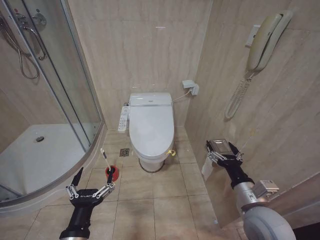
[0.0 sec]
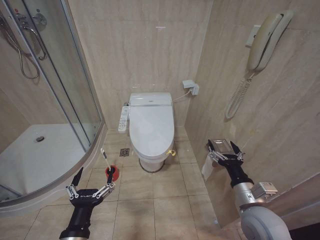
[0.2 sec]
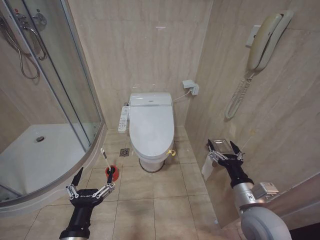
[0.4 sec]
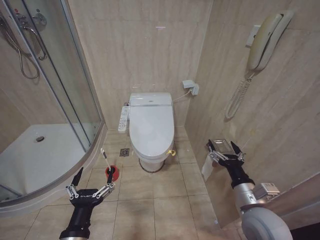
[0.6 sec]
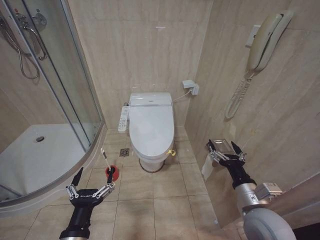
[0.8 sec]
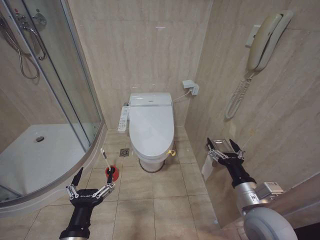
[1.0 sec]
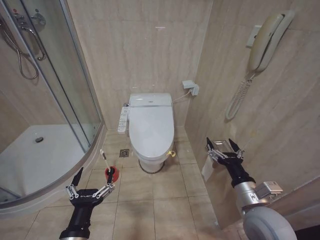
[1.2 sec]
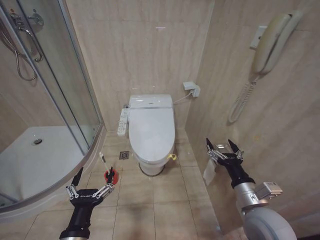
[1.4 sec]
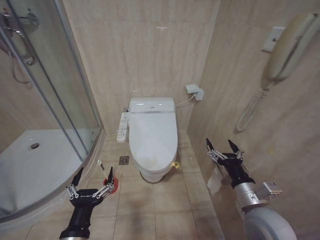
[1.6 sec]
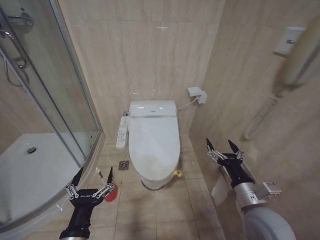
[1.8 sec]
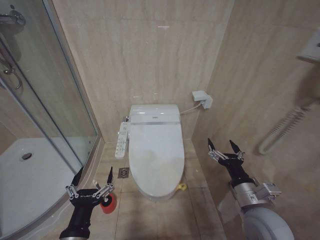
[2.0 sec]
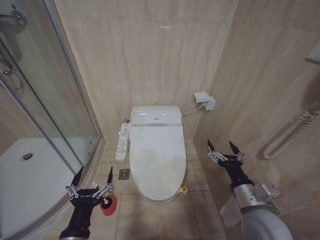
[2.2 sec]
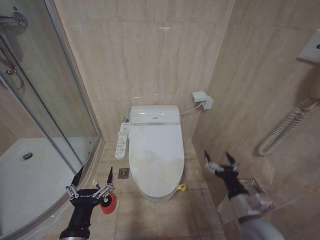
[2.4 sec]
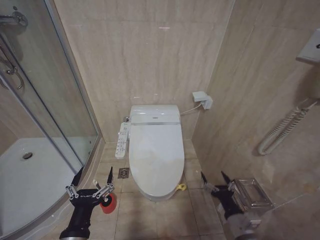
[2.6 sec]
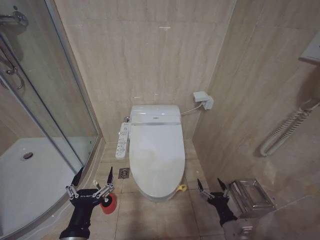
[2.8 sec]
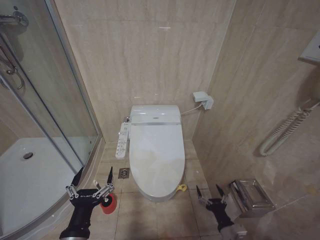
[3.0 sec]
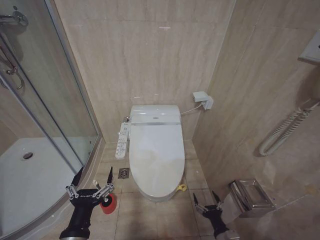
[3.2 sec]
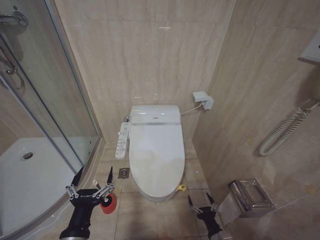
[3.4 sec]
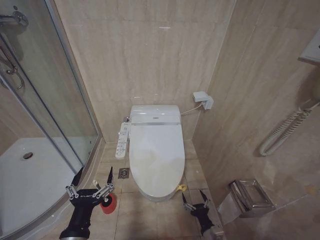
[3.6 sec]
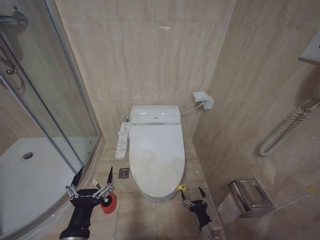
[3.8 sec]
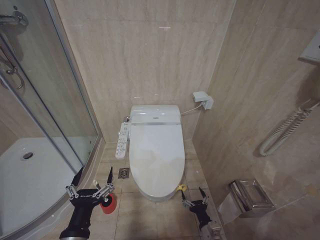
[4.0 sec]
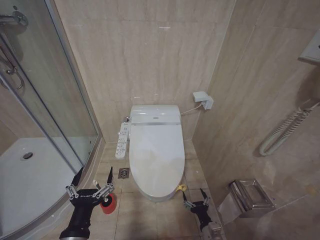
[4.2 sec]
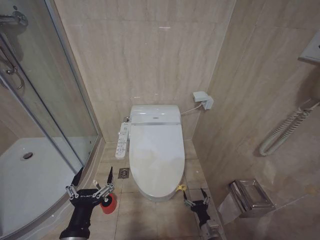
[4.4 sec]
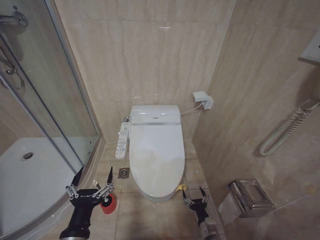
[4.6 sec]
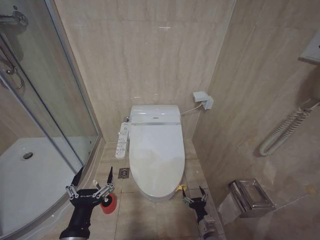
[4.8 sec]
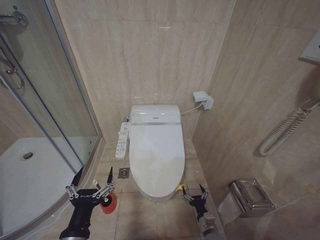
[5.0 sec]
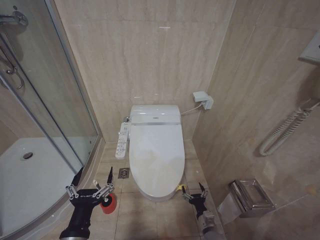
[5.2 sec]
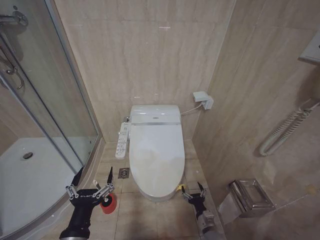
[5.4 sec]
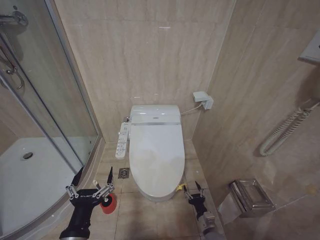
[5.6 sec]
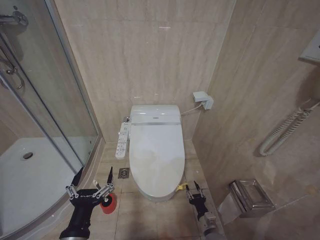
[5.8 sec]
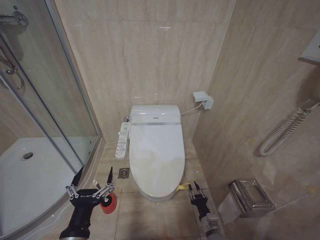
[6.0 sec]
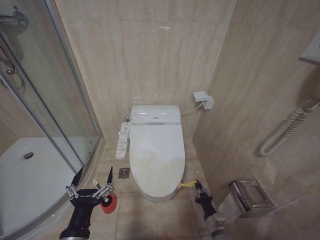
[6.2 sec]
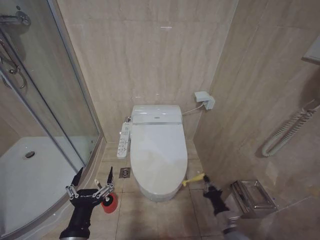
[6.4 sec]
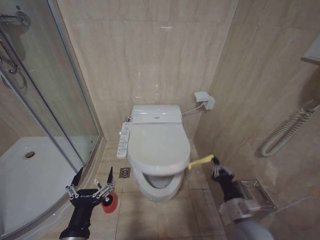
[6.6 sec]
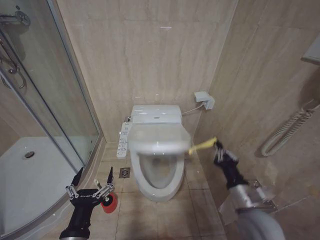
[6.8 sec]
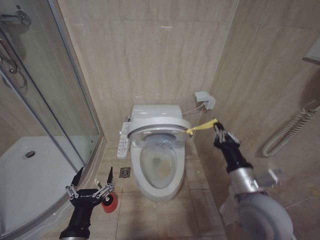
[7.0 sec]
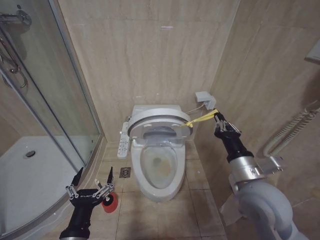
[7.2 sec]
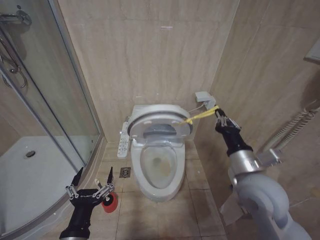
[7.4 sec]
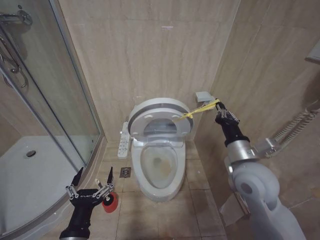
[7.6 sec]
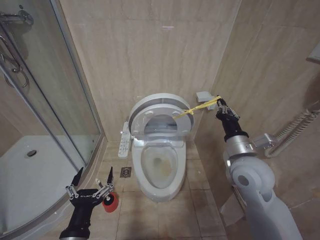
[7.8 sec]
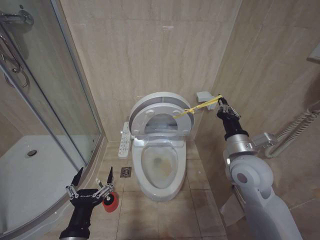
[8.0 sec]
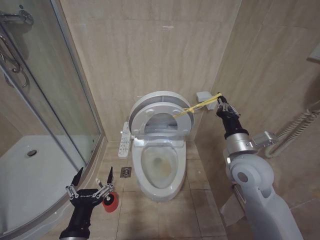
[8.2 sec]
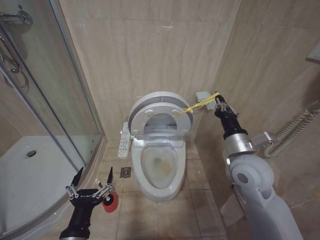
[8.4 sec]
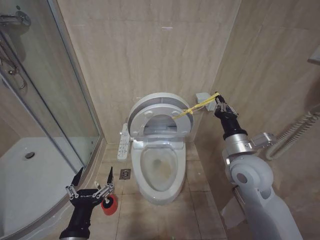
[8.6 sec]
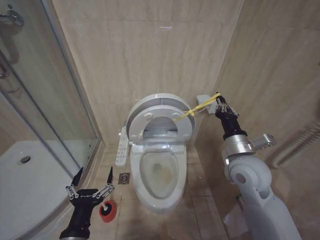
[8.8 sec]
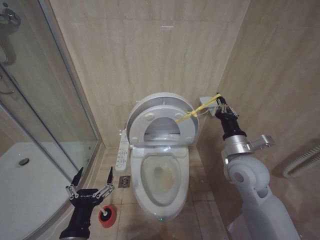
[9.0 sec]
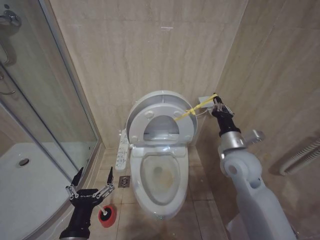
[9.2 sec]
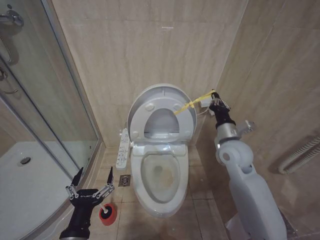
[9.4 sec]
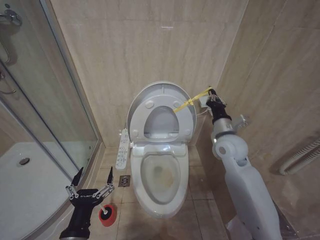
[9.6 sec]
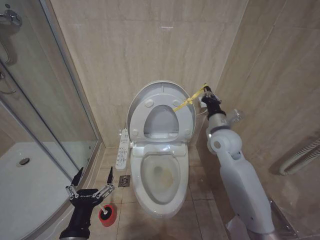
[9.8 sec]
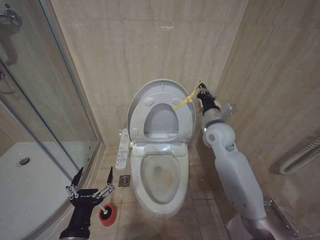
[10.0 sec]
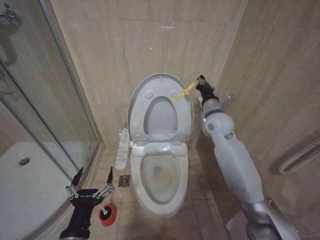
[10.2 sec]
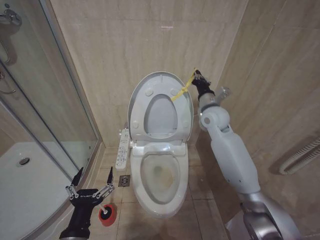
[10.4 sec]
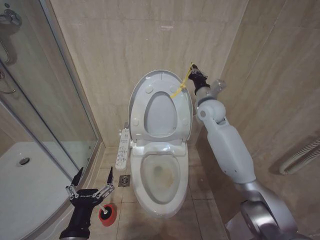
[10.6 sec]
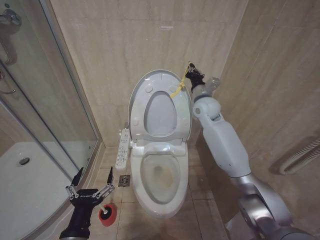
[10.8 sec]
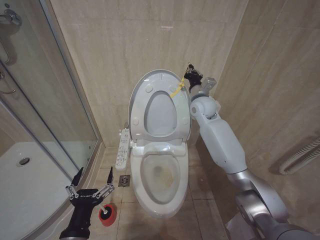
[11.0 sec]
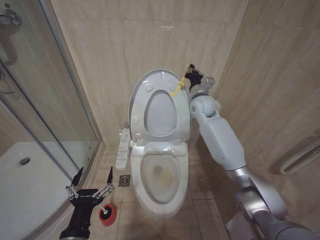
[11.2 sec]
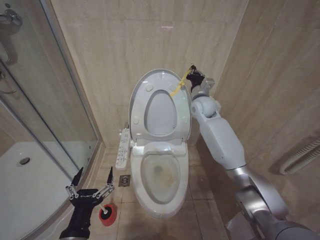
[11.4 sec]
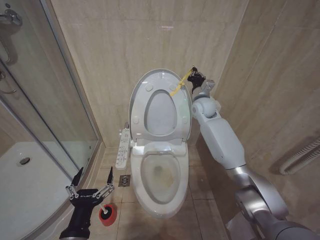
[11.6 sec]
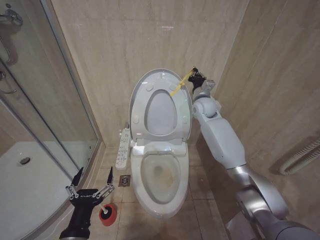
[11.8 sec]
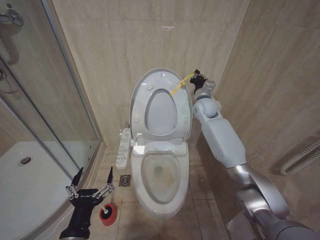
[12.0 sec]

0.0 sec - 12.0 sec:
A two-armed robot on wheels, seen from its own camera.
Task of the whole recording: Open the toilet lid, clean the toilet bowl with a toilet brush, close the toilet lid, and flush.
1.6 sec - 3.0 sec: The right gripper goes roughly 20 cm downward.
3.0 sec - 4.4 sec: The right gripper shifts about 10 cm downward.
6.0 sec - 7.6 sec: The right gripper moves upward, roughly 40 cm, and closes.
7.6 sec - 9.0 sec: The grippers stay close to where they were, moving slightly.
9.0 sec - 10.4 sec: The right gripper heads forward, covering about 15 cm.
10.4 sec - 12.0 sec: The right gripper travels forward by some 10 cm.

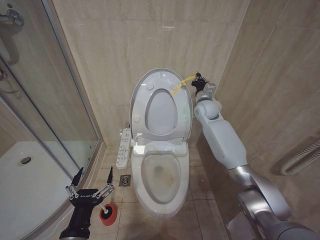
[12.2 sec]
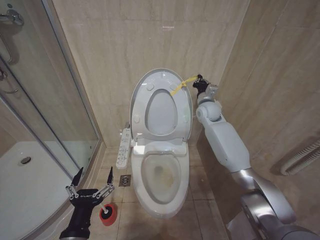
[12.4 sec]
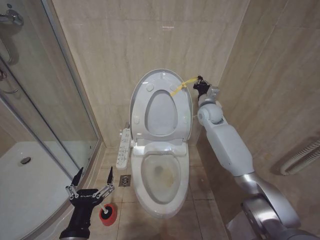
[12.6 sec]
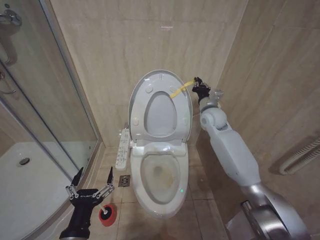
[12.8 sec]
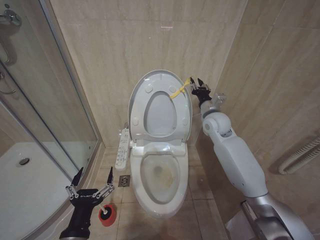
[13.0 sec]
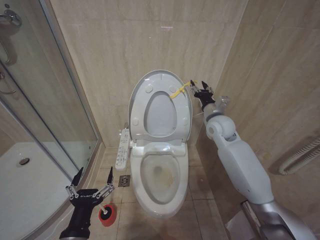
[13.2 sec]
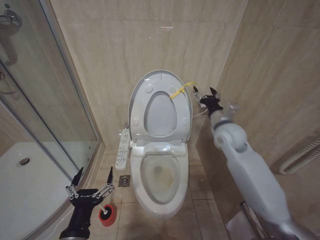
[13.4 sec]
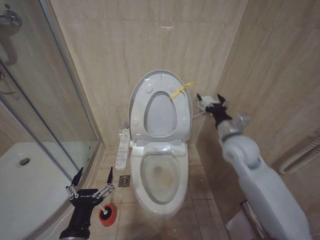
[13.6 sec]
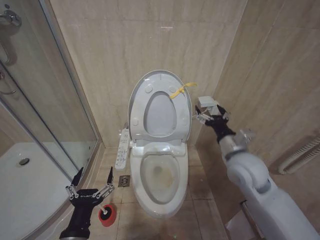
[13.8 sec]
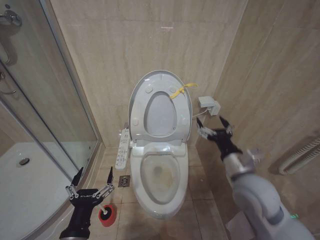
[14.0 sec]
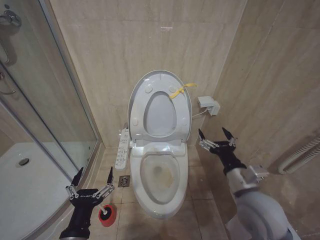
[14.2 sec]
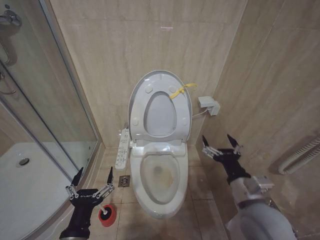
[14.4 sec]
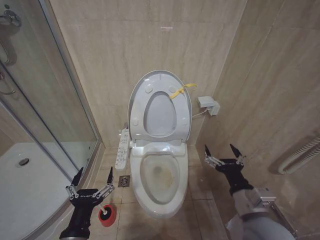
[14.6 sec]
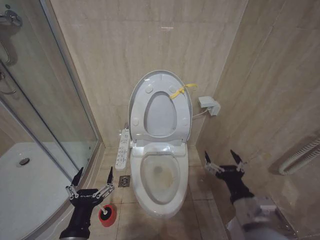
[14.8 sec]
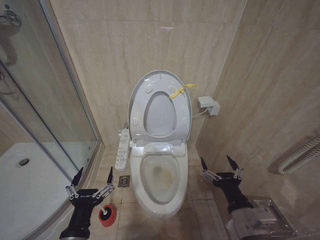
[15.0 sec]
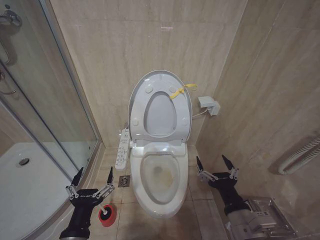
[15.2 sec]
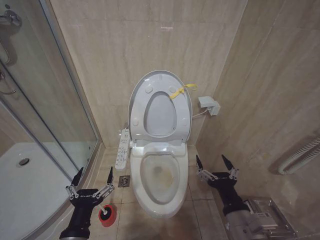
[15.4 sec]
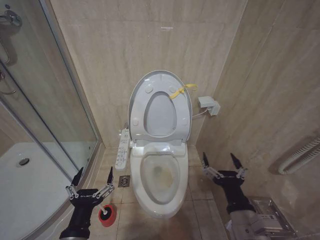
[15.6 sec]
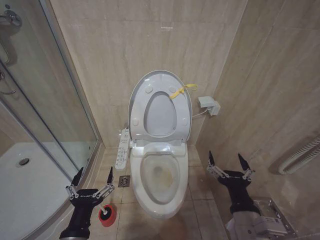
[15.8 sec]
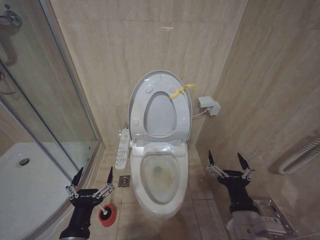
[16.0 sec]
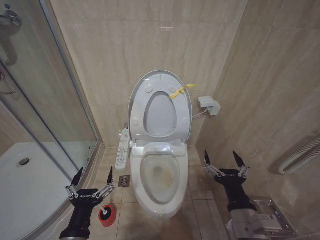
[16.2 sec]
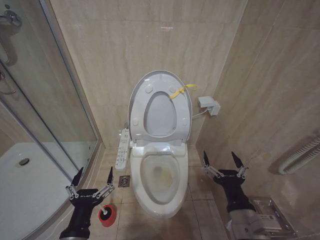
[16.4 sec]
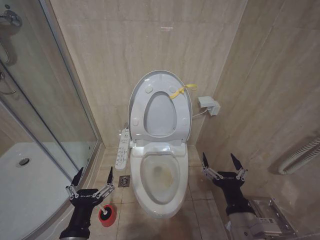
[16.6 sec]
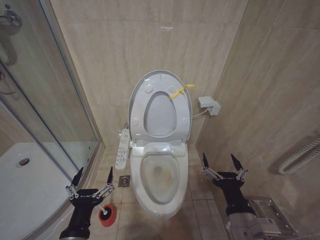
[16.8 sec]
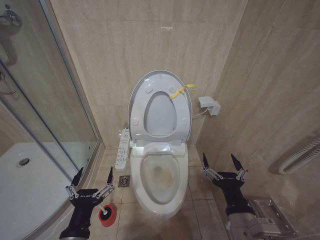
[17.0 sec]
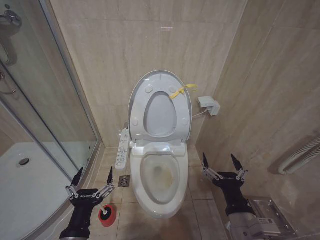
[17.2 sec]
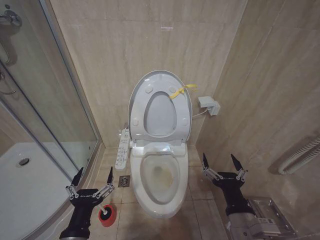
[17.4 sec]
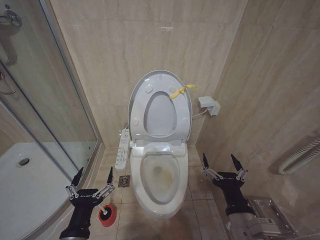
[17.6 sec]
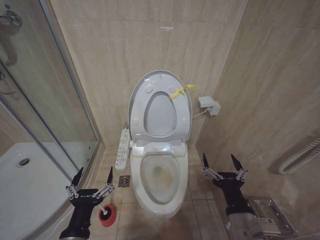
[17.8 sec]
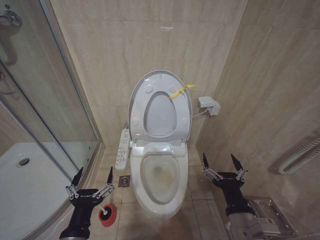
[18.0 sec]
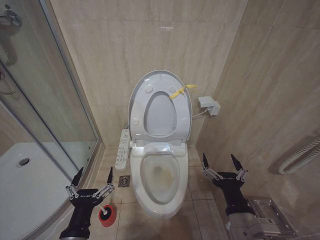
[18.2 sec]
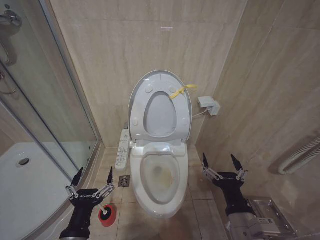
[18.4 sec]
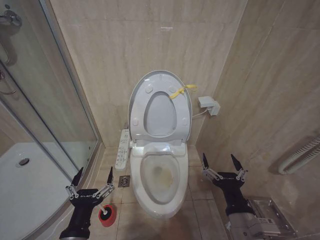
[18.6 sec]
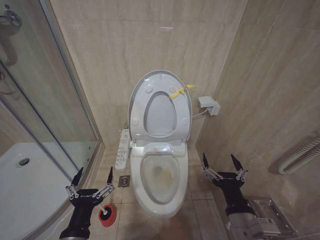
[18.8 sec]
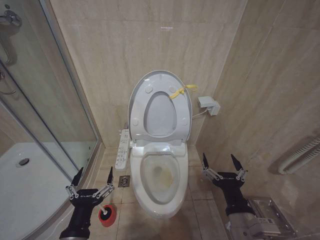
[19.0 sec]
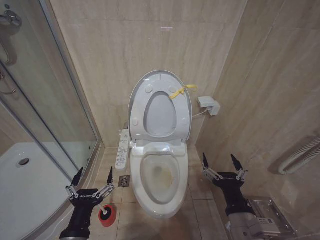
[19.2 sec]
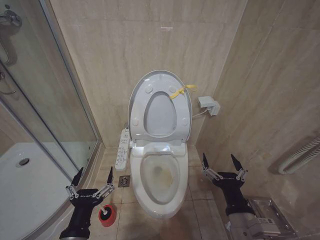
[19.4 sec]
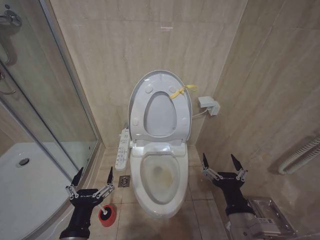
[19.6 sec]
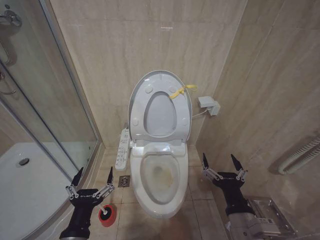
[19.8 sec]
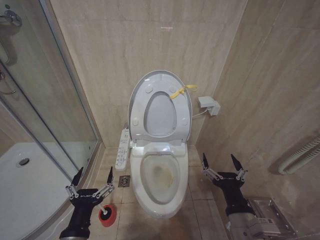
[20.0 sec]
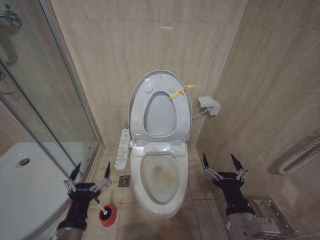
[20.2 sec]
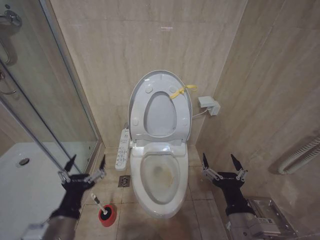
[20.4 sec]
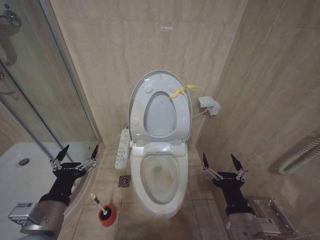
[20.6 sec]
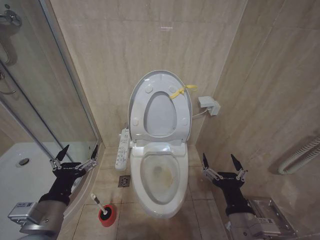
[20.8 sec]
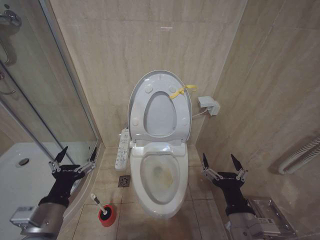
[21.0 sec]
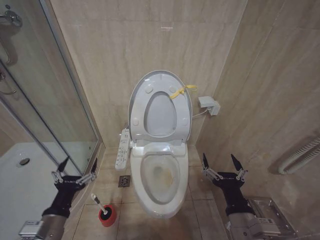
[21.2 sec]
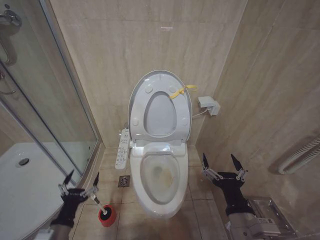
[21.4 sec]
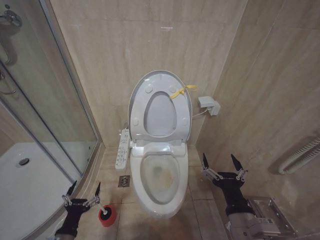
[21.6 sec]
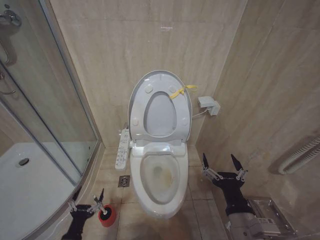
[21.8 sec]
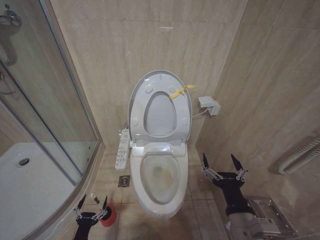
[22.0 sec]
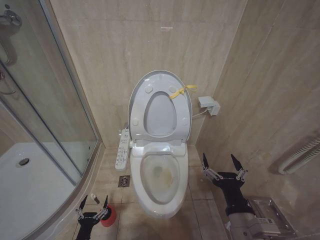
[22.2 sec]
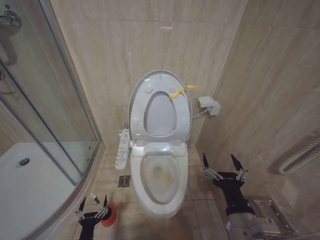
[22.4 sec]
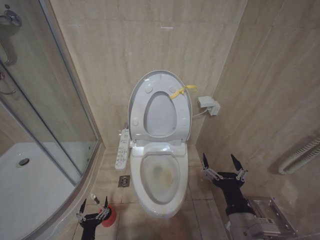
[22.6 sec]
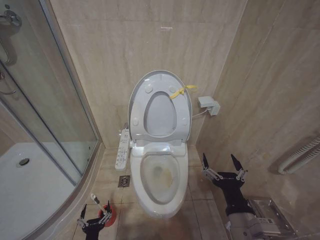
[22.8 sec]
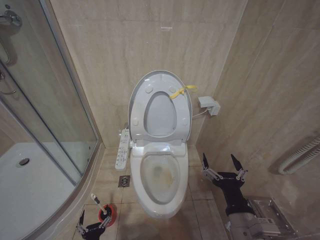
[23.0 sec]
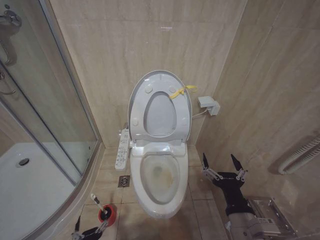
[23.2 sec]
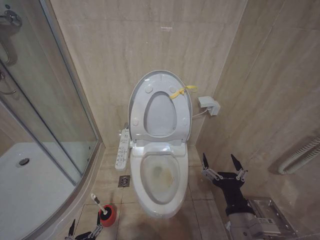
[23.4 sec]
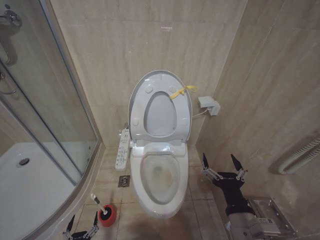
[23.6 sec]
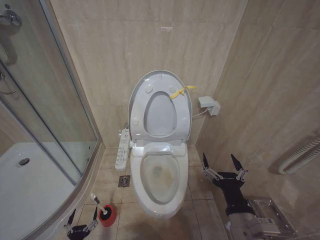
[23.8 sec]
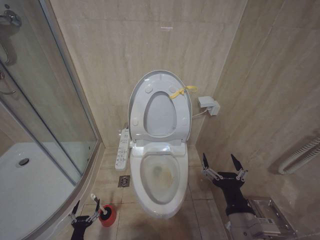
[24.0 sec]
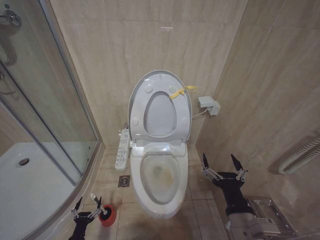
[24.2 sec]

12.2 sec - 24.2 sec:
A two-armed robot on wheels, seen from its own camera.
Task of the whole recording: Open the toilet lid, clean the toilet bowl with a toilet brush, close the toilet lid, and flush.
12.2 sec - 13.8 sec: The right gripper is displaced backward by about 25 cm, and opens.
13.8 sec - 15.2 sec: The right gripper moves backward and downward, some 20 cm.
15.2 sec - 16.6 sec: The grippers move only a little.
16.6 sec - 19.8 sec: Neither gripper changes place.
19.8 sec - 21.2 sec: The left gripper travels to the left by approximately 5 cm.
21.2 sec - 22.6 sec: The left gripper is displaced downward by about 25 cm.
22.6 sec - 24.2 sec: The left gripper moves to the left and downward, approximately 10 cm.
